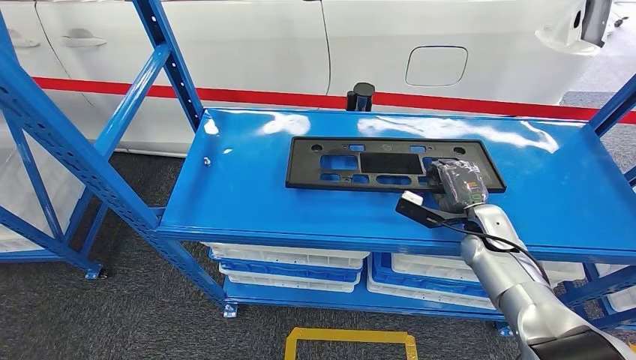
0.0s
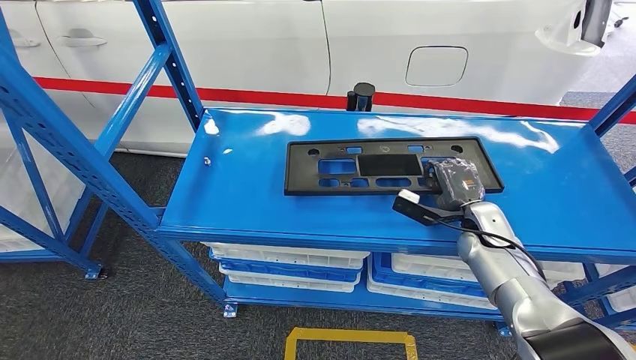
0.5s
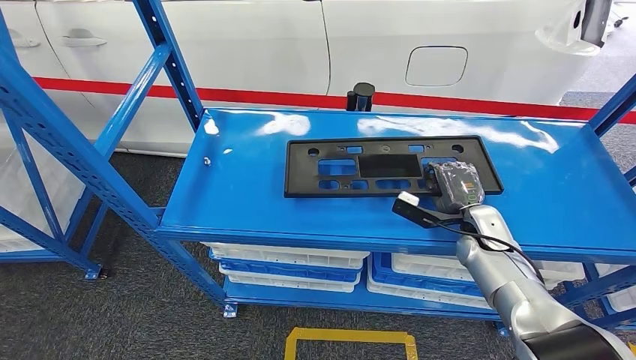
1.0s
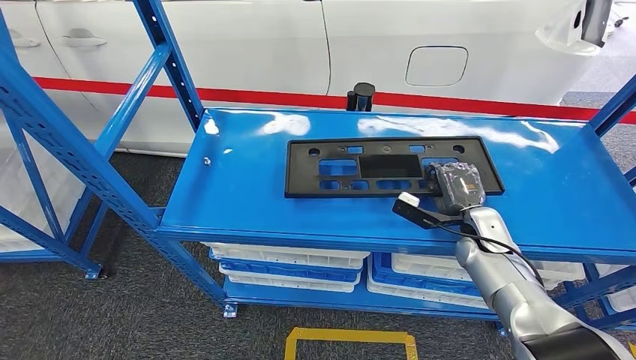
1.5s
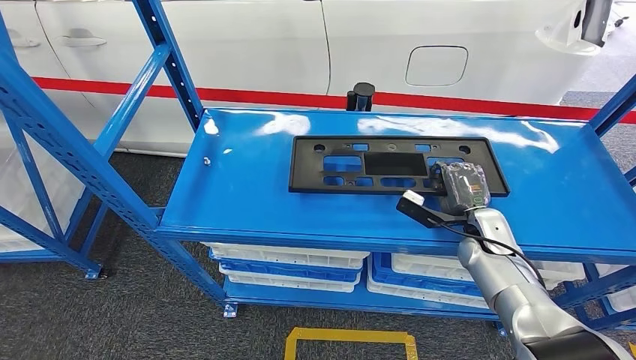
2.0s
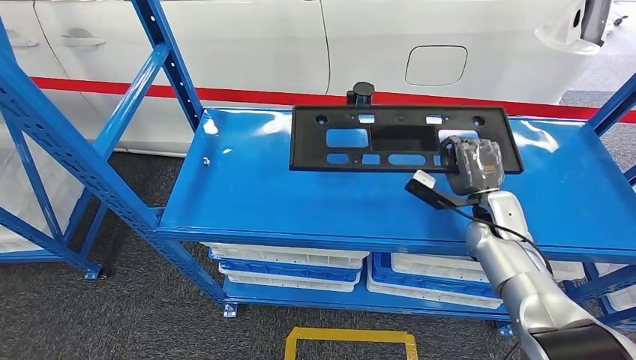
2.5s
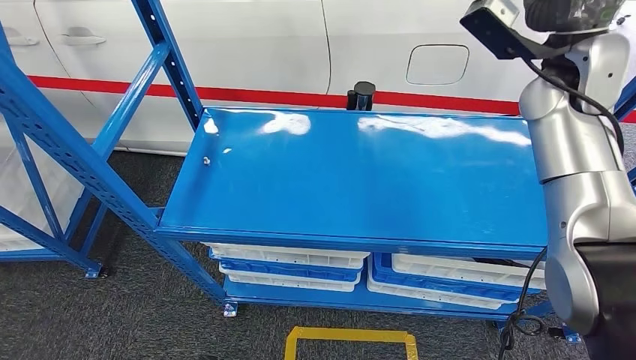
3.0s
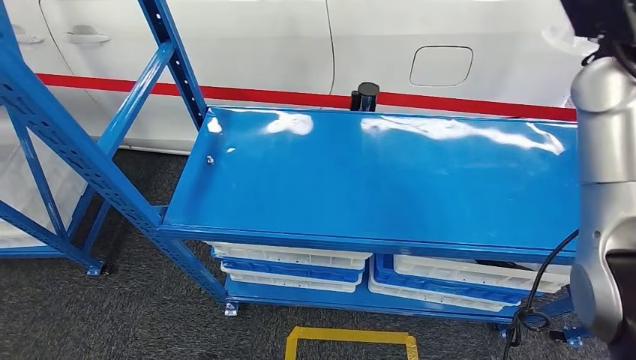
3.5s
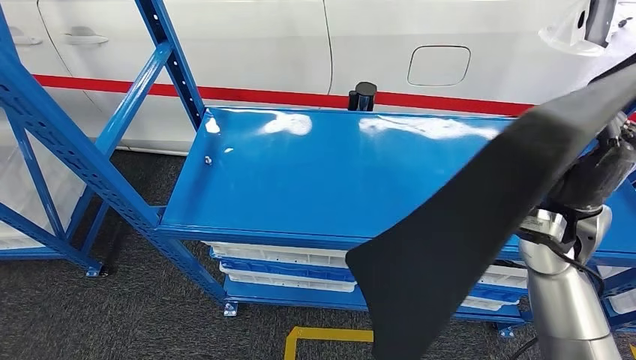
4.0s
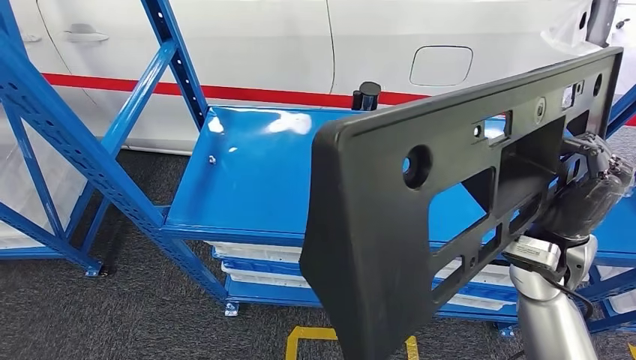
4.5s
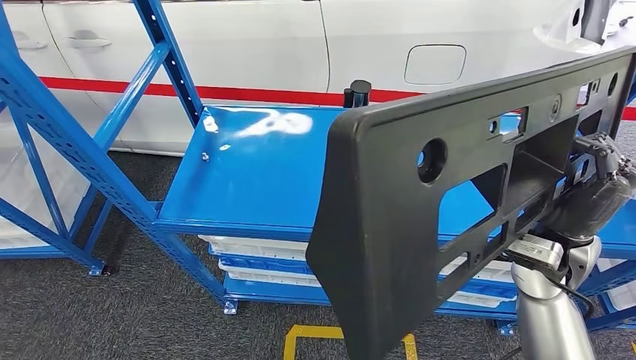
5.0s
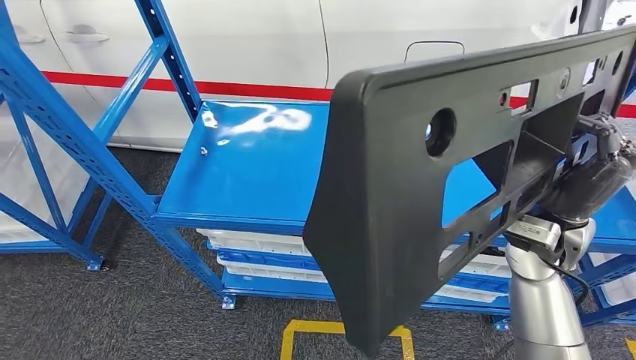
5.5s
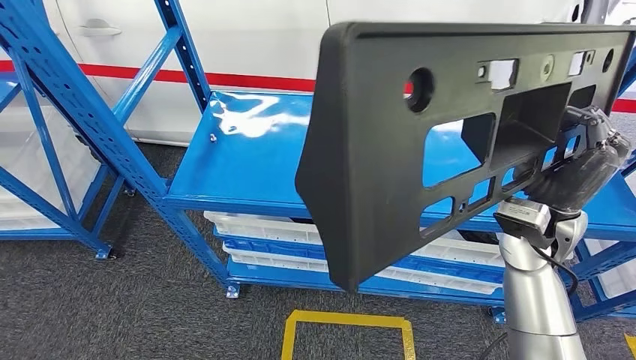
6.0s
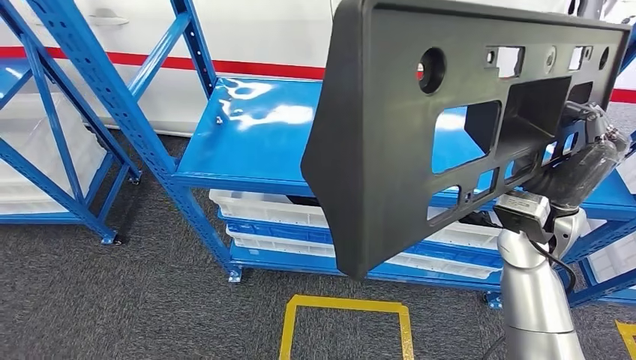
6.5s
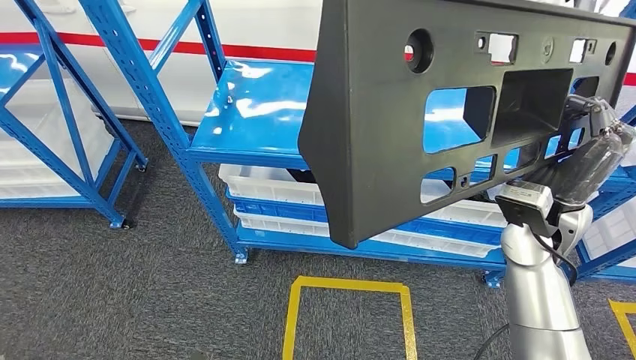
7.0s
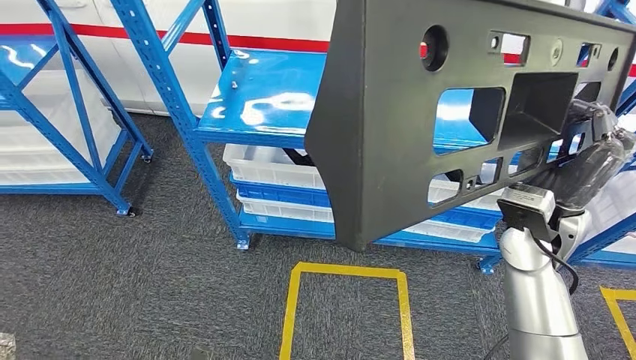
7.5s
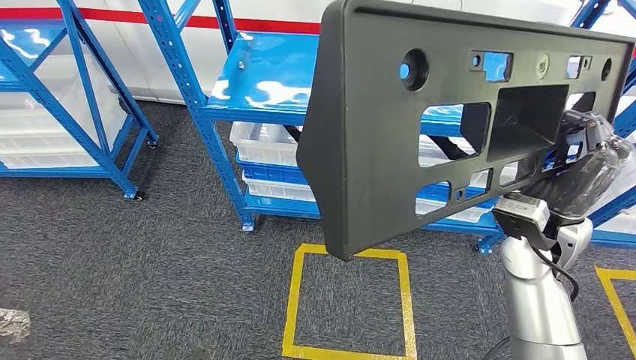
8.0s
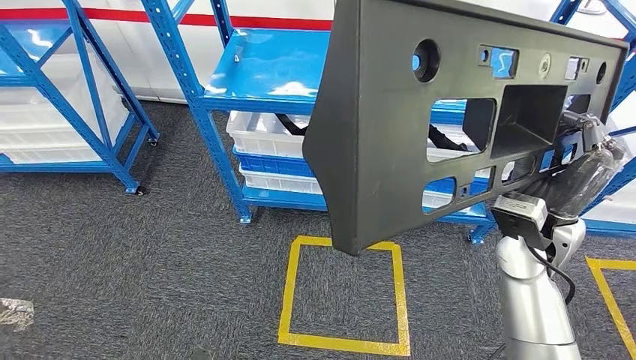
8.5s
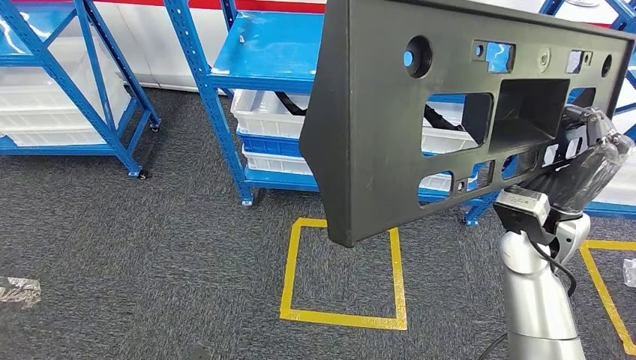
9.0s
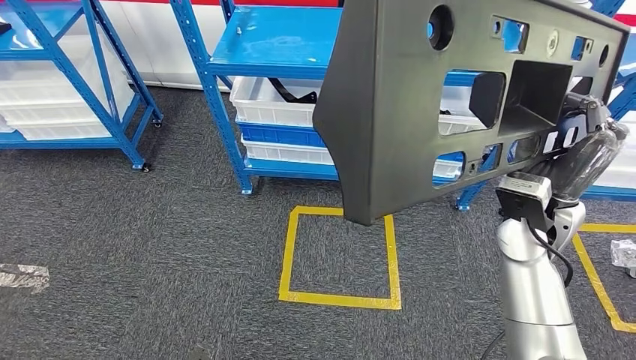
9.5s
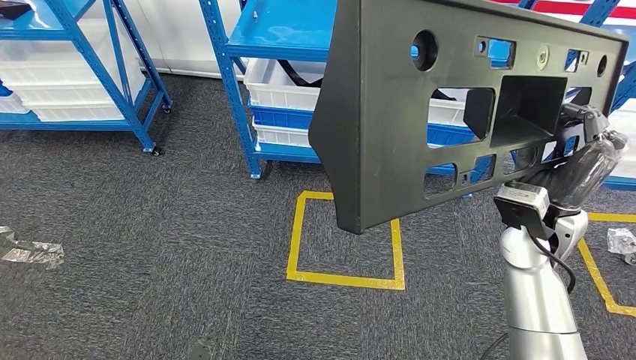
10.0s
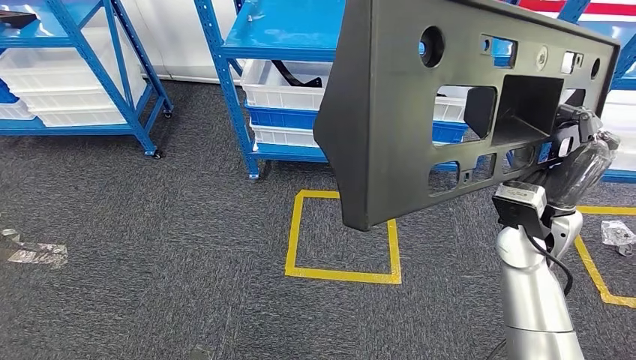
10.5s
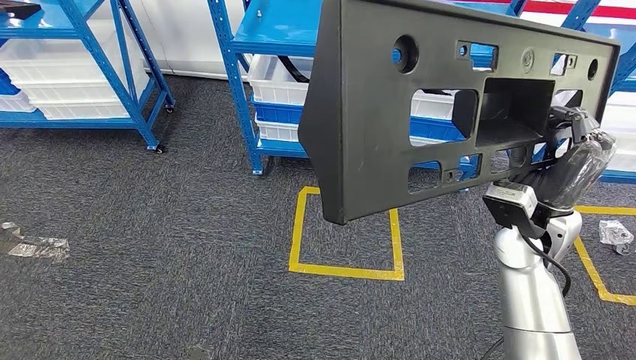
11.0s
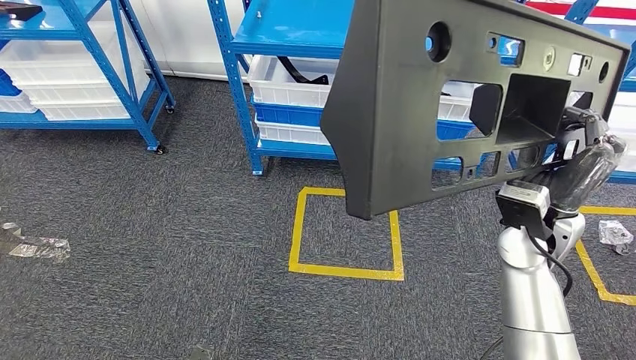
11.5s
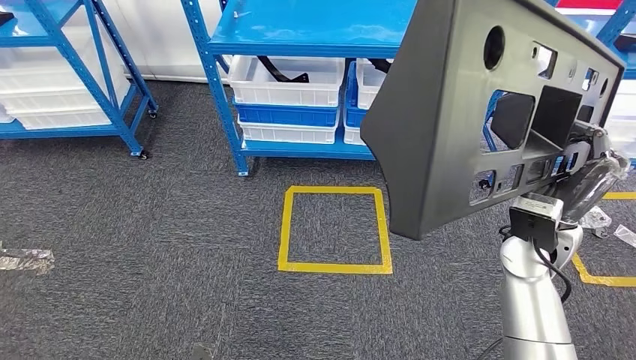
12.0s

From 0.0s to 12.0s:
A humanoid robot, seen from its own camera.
Step, from 0.0s to 2.5s: Pick up the large material from the shelf.
From 0.0s to 2.0s: There are only small adjustments of the hands.

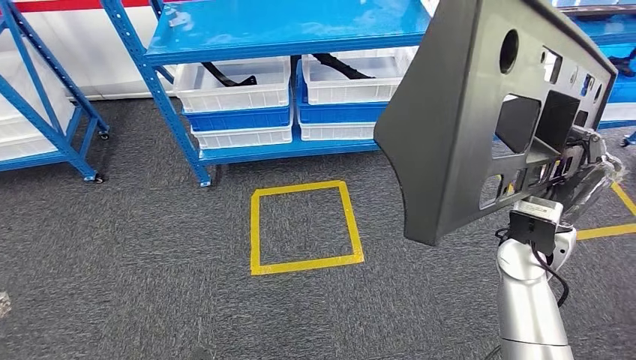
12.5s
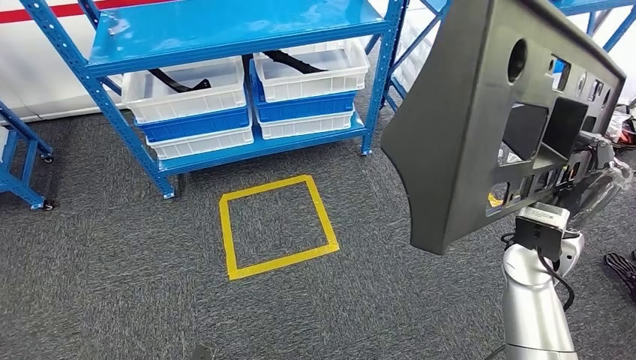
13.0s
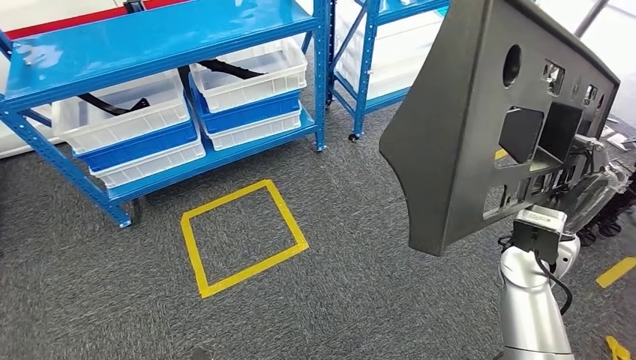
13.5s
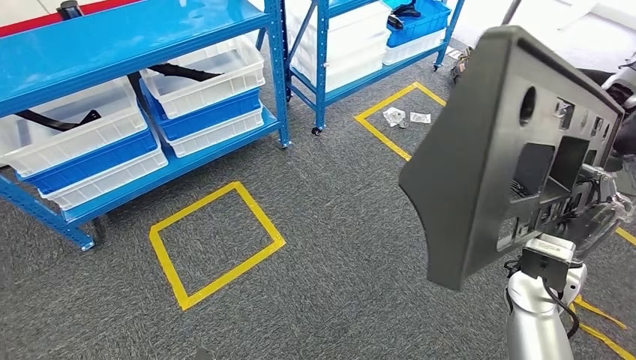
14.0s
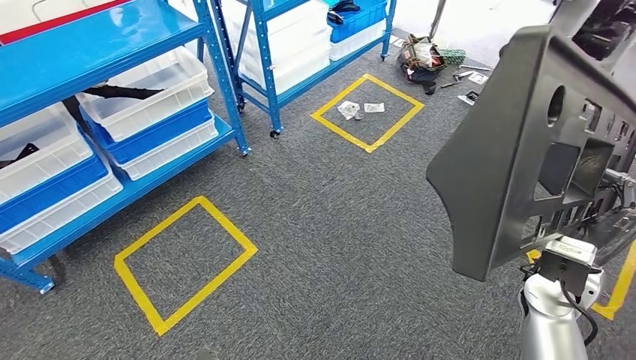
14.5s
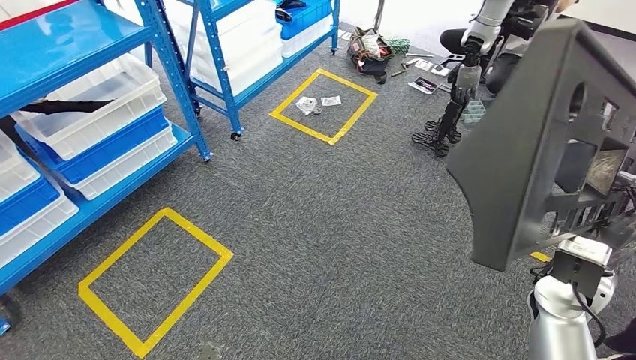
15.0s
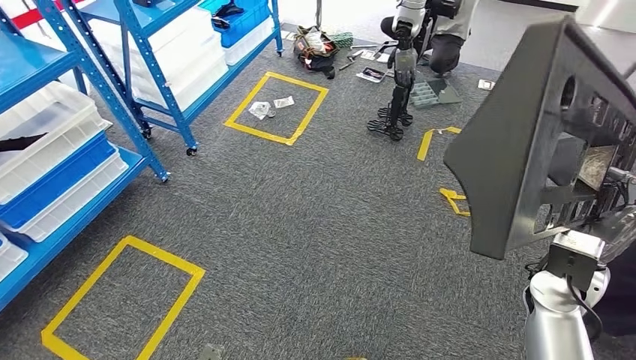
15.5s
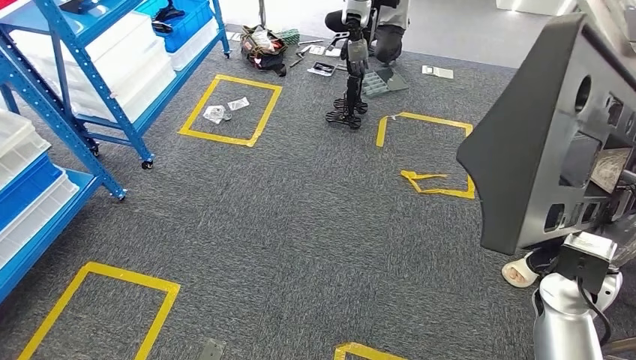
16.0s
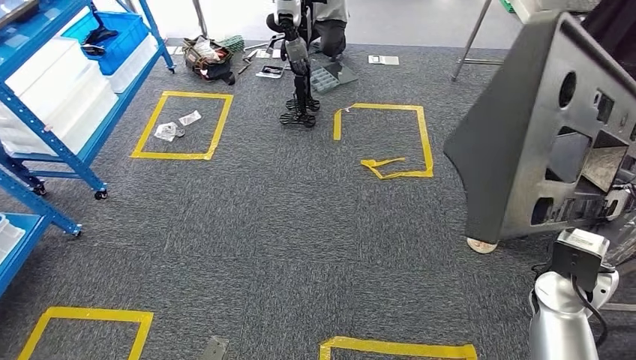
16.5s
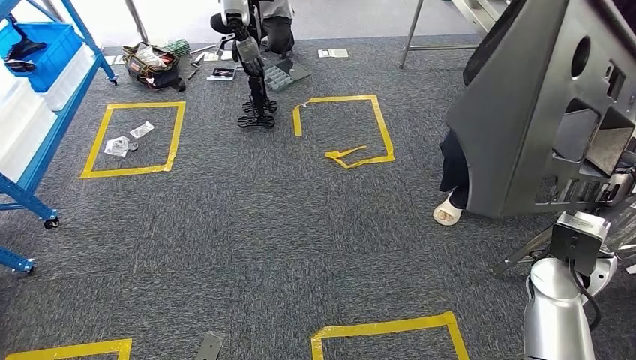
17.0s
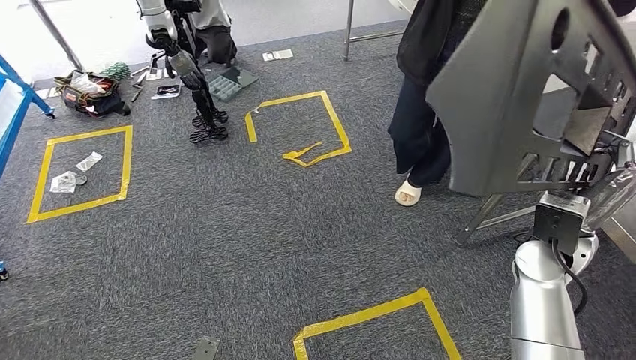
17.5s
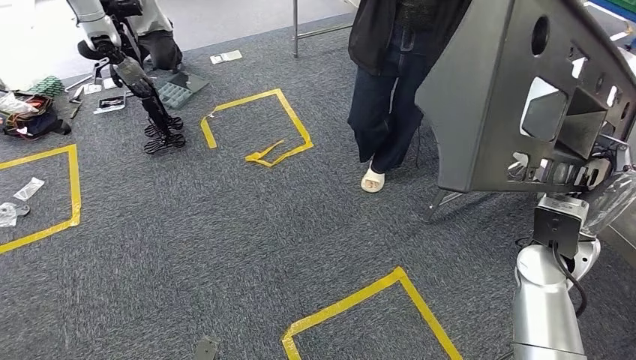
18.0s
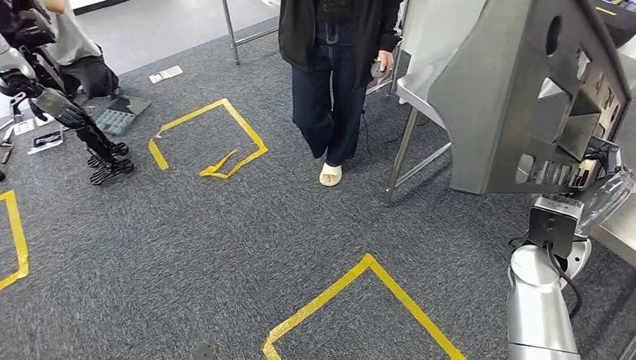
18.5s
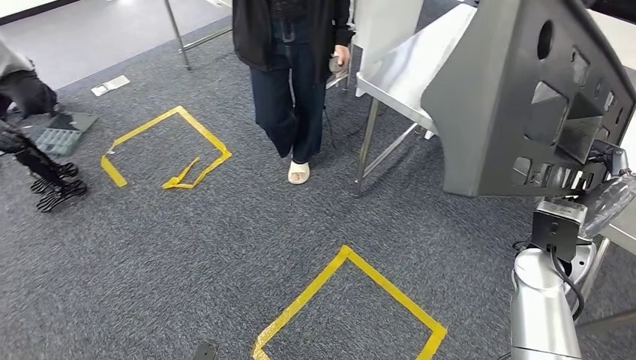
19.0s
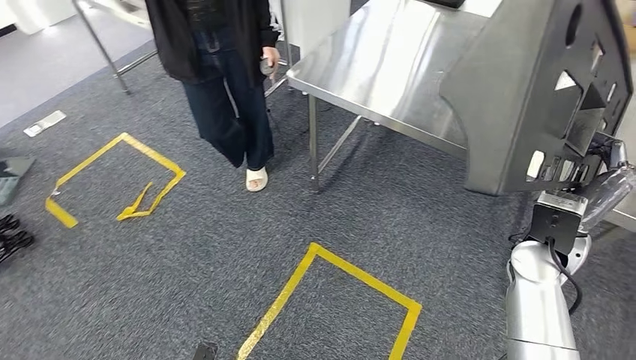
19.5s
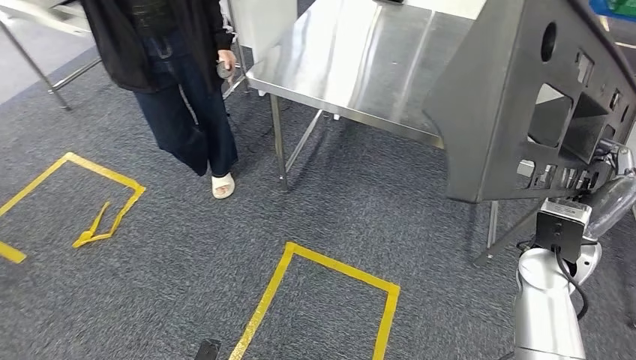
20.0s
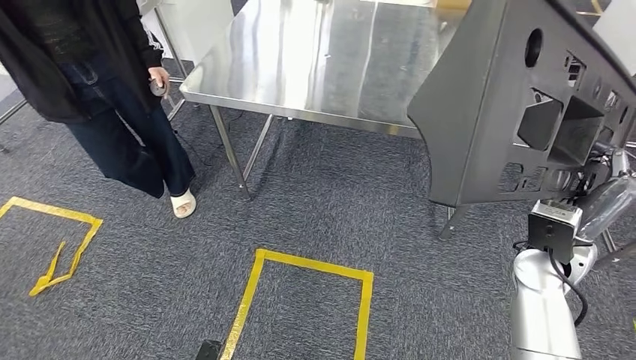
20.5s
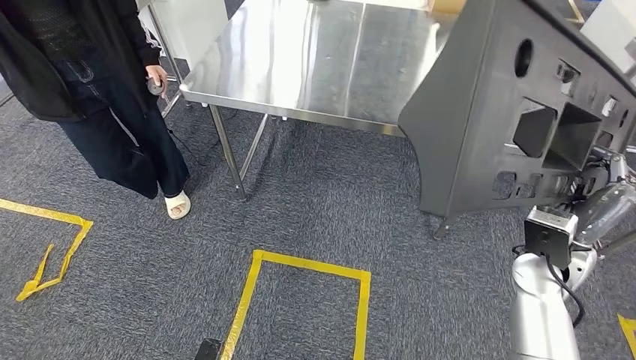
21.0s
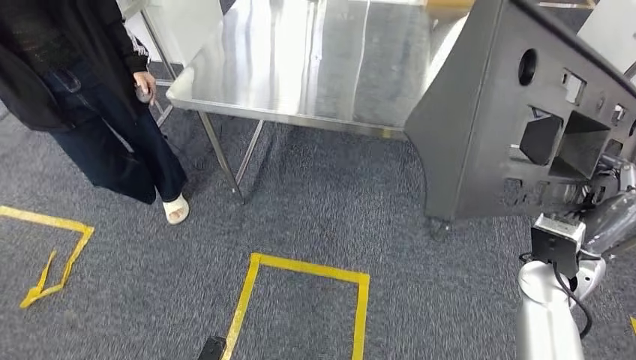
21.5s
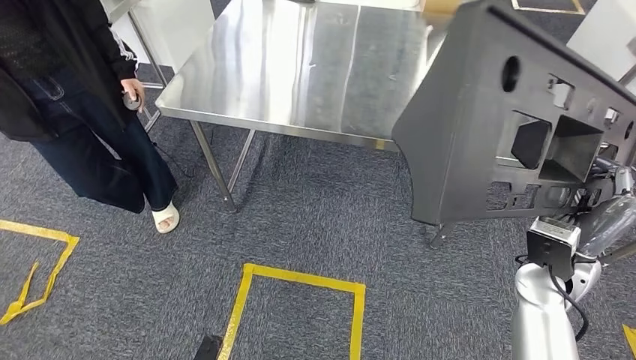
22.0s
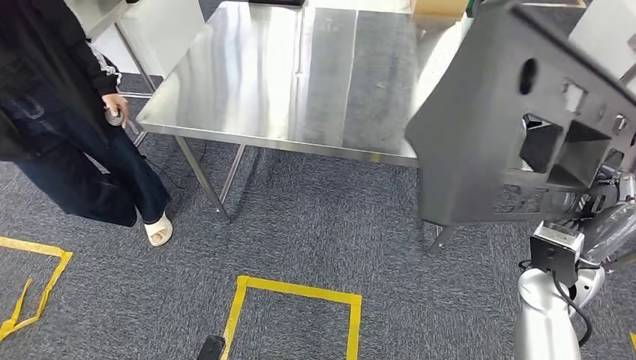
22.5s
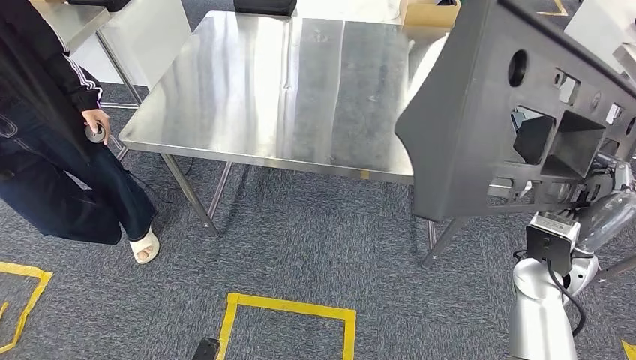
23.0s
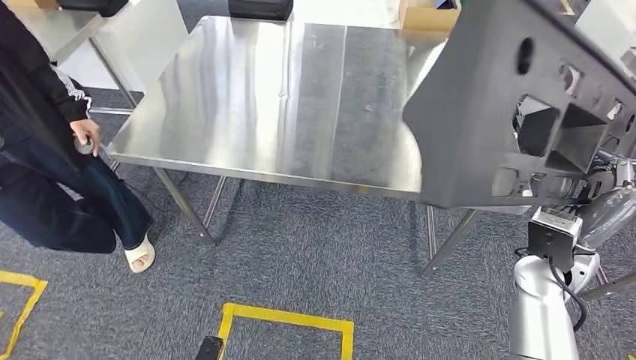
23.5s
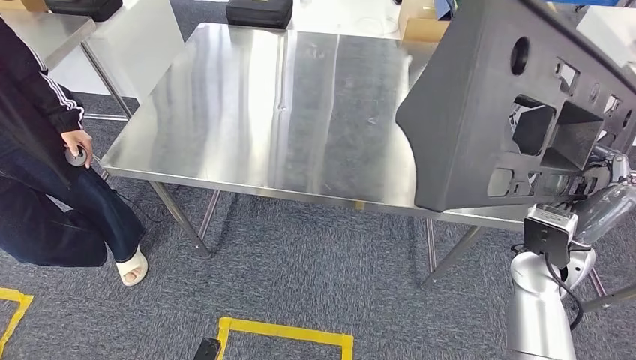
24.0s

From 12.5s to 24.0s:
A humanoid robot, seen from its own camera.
Step, from 12.5s to 22.0s: Move the large material to the workbench.
